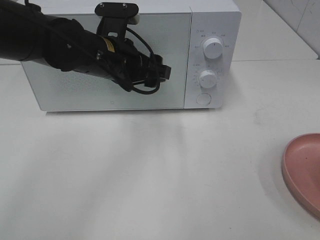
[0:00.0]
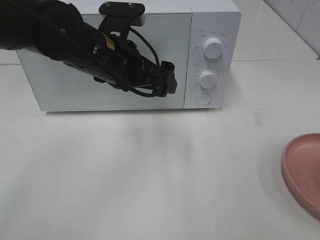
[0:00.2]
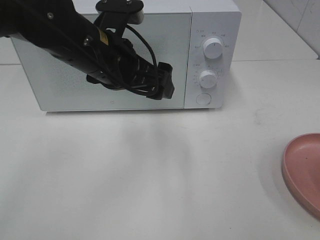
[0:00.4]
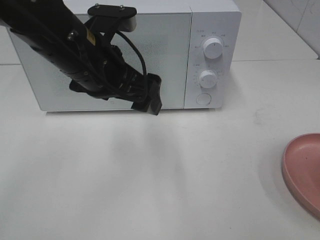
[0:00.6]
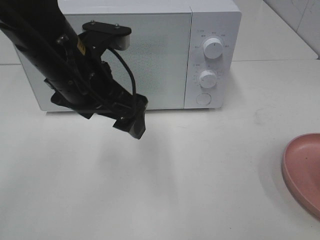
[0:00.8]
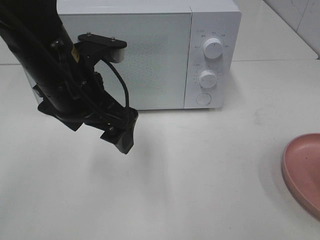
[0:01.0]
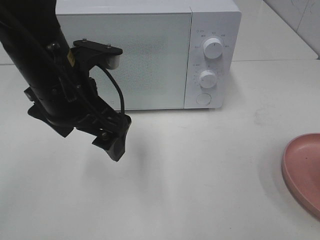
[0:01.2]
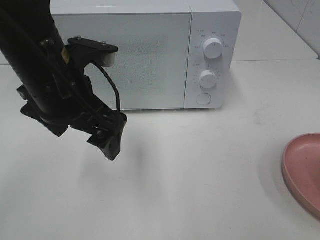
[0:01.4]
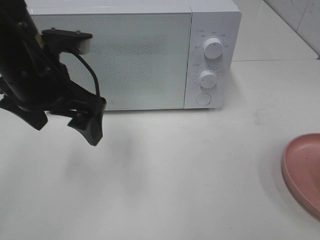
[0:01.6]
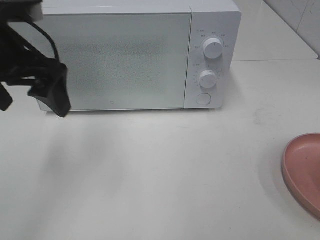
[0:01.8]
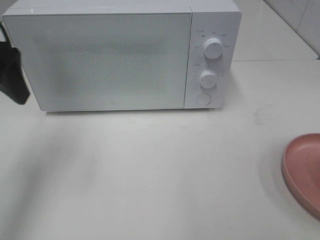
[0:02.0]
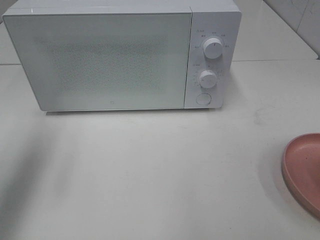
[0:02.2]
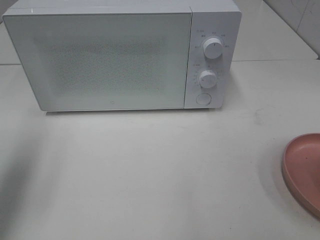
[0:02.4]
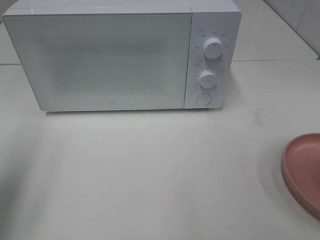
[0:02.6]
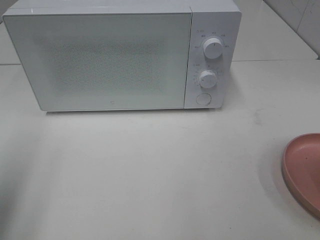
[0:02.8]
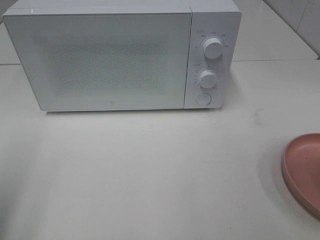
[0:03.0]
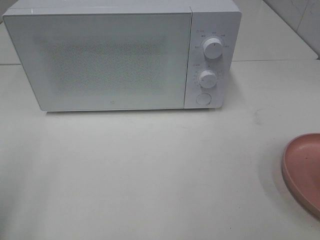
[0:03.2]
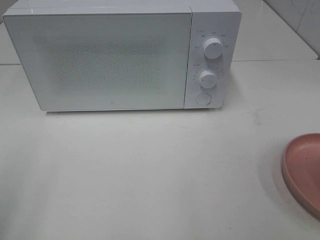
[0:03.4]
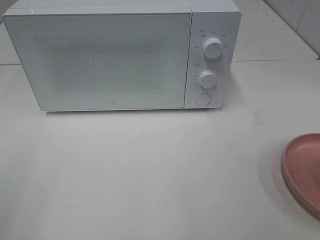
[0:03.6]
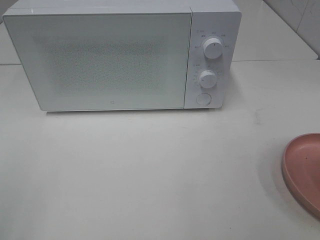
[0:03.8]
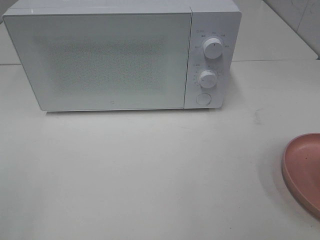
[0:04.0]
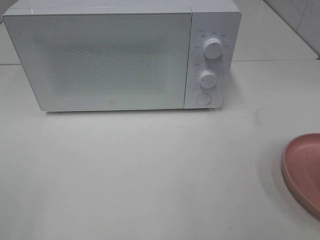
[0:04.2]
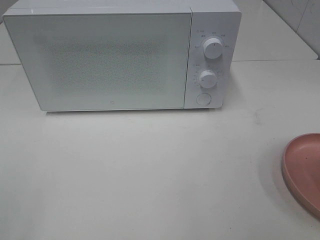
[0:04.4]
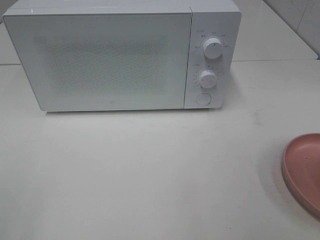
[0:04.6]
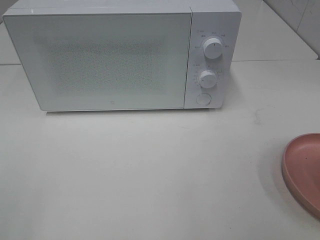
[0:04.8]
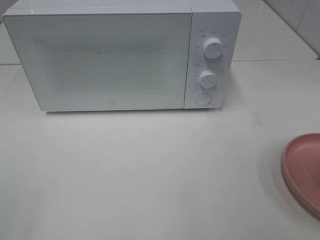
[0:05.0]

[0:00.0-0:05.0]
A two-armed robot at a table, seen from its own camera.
Task of the whole recording: Heat the burger.
0:00.0 to 0:01.6: The left gripper moves to the left and backward, some 10 cm.
0:01.6 to 0:03.4: The left gripper moves backward and to the left, about 25 cm.

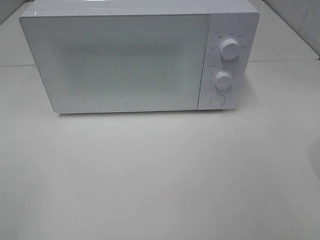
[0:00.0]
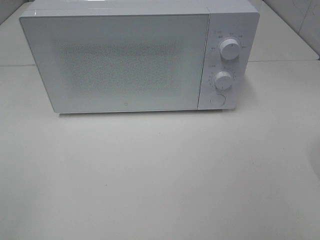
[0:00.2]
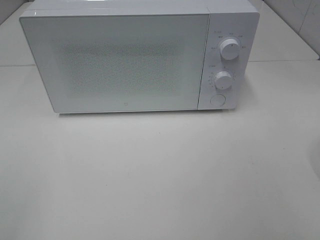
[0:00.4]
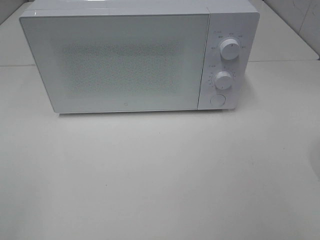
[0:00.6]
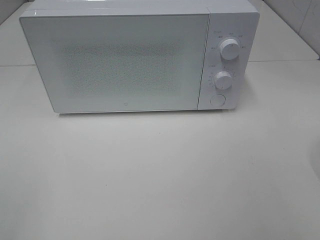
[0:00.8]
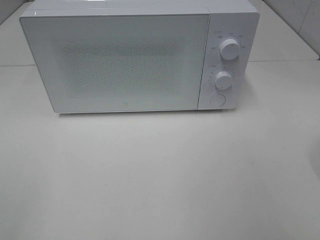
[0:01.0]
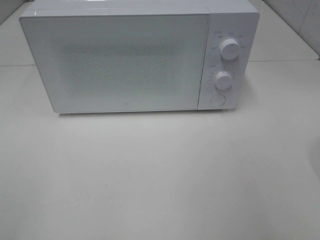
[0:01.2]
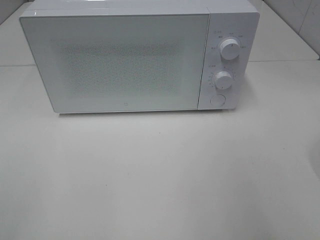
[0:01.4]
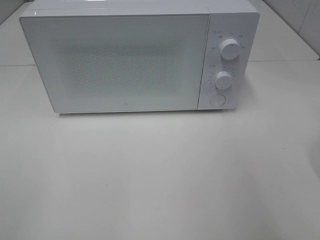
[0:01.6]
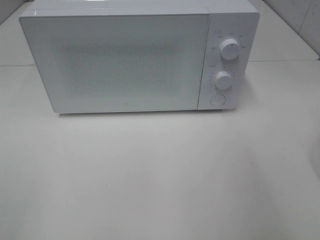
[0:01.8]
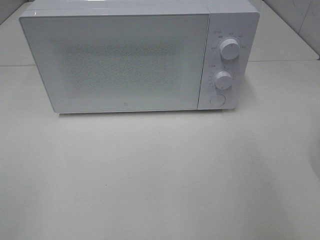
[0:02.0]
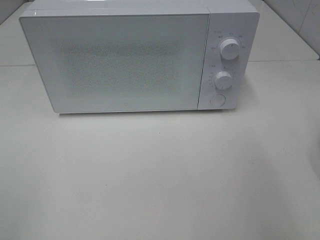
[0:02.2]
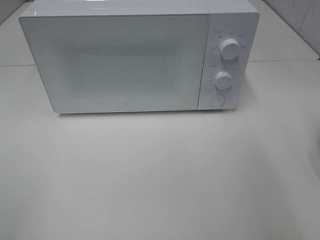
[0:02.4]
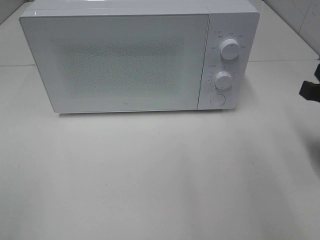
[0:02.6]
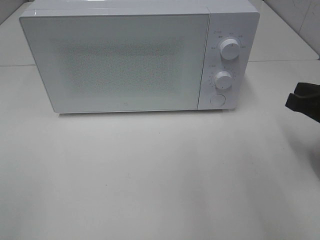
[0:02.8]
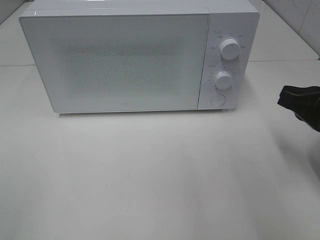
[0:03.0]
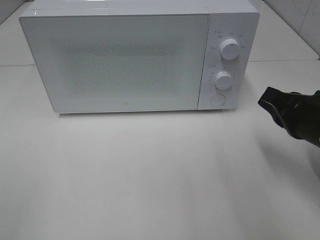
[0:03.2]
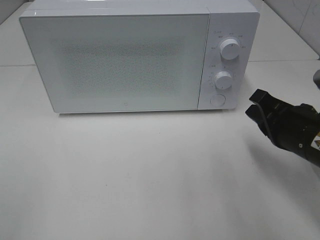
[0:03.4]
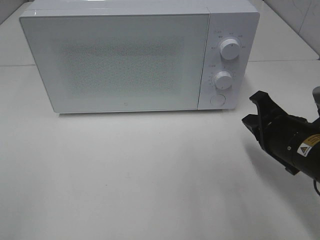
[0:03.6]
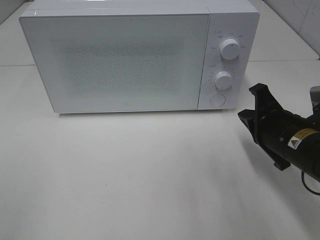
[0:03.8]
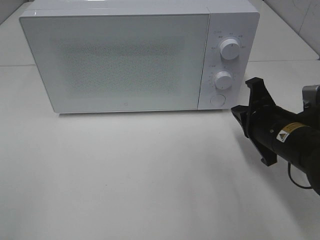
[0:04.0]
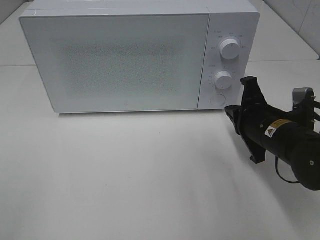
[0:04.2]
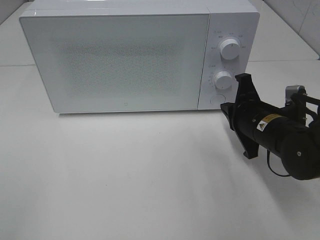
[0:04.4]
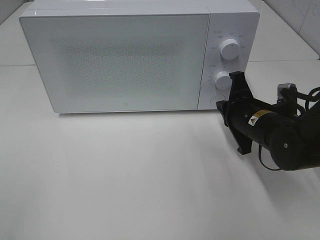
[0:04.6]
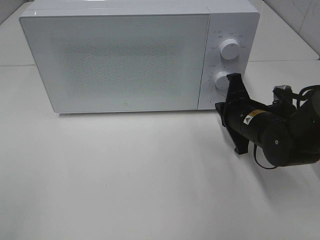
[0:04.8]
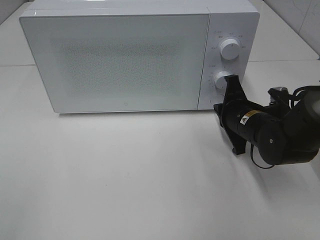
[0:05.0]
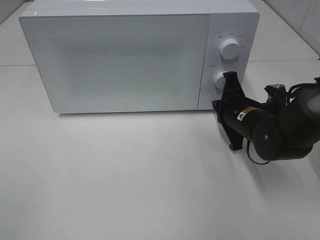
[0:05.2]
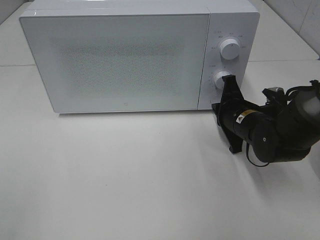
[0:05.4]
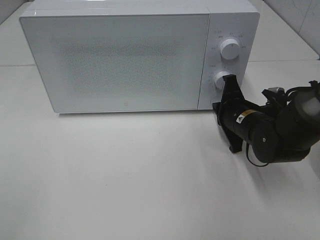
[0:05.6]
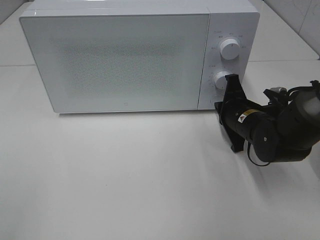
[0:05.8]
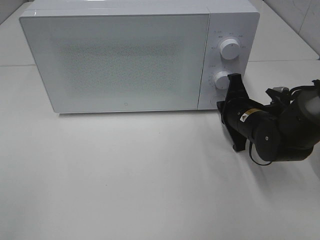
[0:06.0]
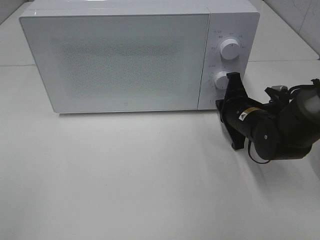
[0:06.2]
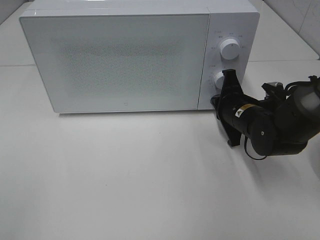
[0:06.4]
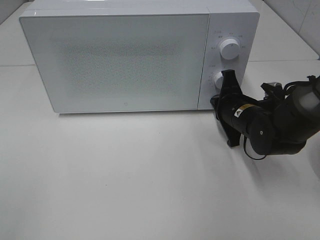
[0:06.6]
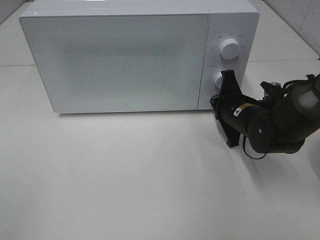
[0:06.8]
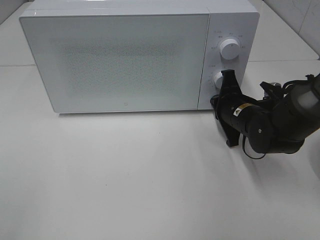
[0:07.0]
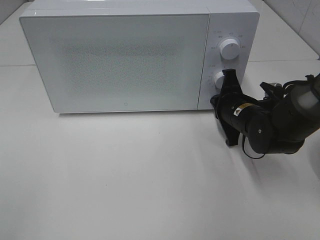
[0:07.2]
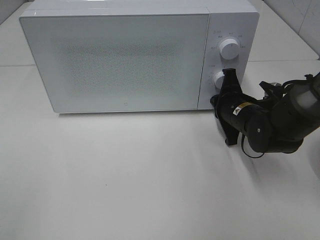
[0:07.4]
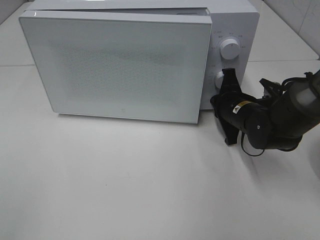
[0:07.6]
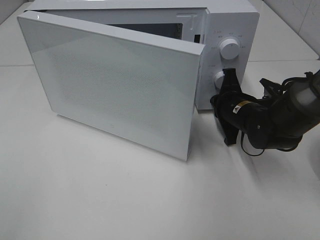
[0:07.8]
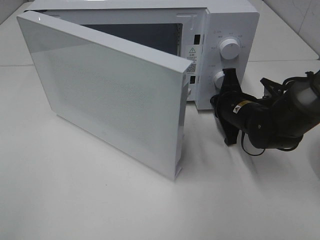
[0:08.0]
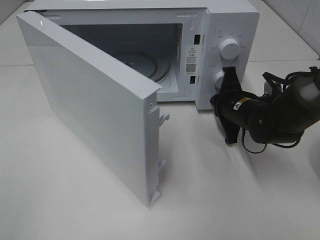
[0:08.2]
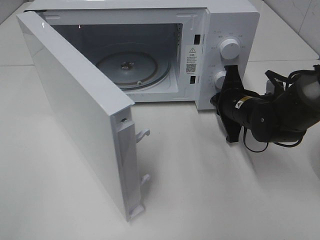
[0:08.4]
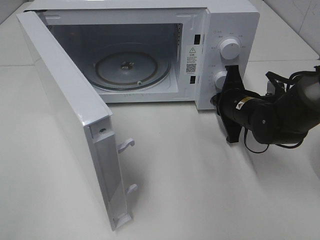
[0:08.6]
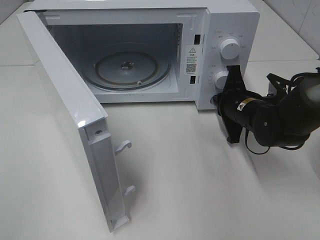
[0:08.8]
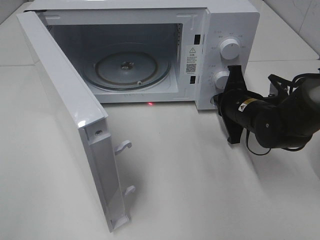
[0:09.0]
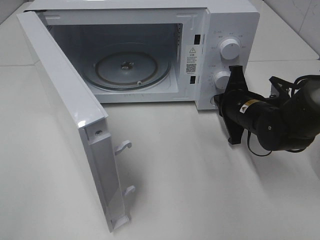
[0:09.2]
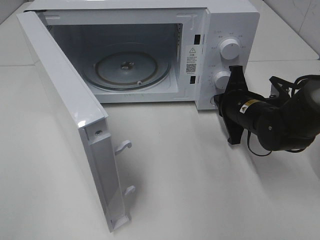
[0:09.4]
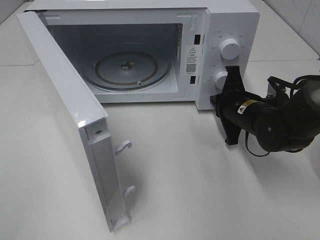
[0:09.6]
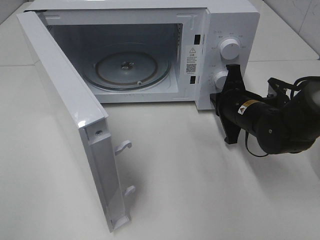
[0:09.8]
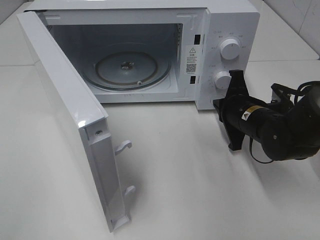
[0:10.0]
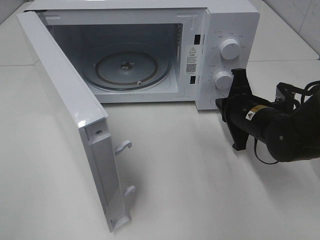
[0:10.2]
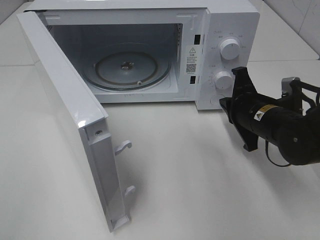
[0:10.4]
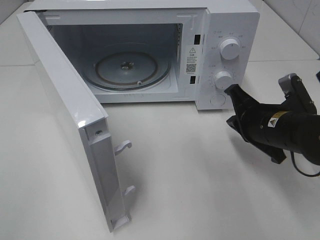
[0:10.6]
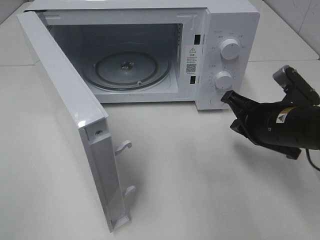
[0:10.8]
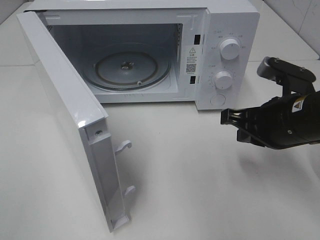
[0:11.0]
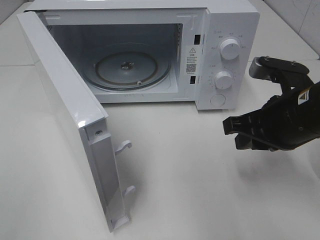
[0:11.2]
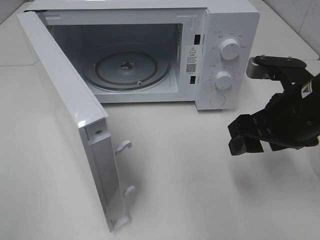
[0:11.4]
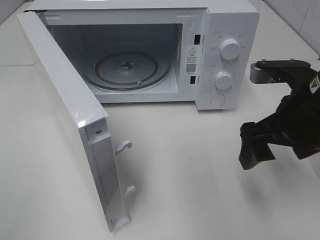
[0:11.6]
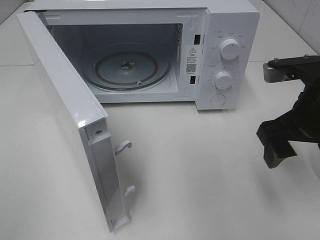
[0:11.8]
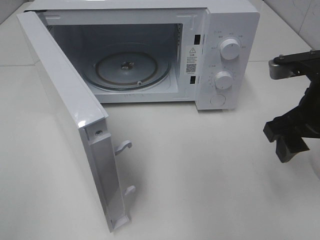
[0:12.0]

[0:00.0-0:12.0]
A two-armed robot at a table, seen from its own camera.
Task of the whole recording: Heat the burger.
Step, 0:00.0 to 0:09.8: Right hand: press the switch.
0:01.6 to 0:03.0: The right gripper moves downward and forward, roughly 15 cm.
0:03.0 to 0:04.4: The right gripper shifts some 15 cm to the left, downward and forward.
0:04.4 to 0:06.0: The right gripper moves roughly 5 cm.
0:06.0 to 0:07.6: There are only small adjustments of the grippers.
0:09.0 to 0:10.4: The right gripper moves approximately 5 cm.
0:10.4 to 0:12.0: The right gripper goes roughly 15 cm upward and backward, and opens its fingers.

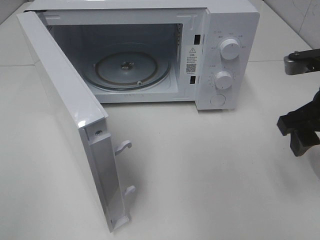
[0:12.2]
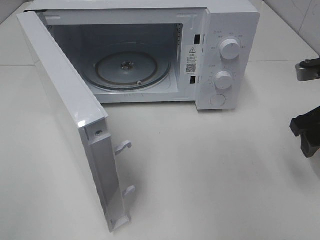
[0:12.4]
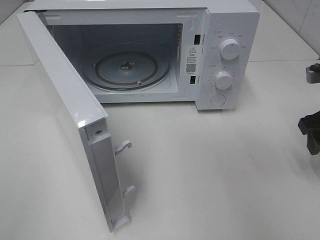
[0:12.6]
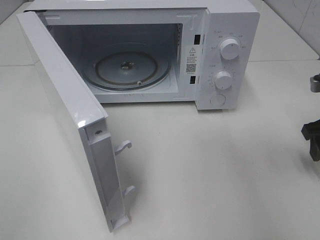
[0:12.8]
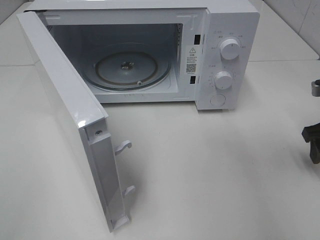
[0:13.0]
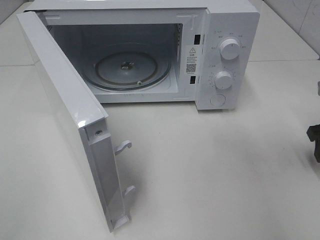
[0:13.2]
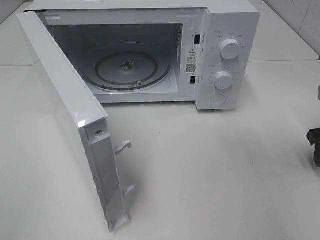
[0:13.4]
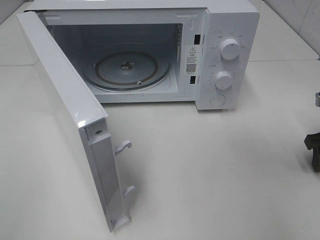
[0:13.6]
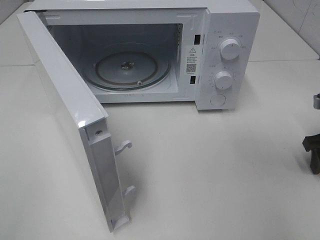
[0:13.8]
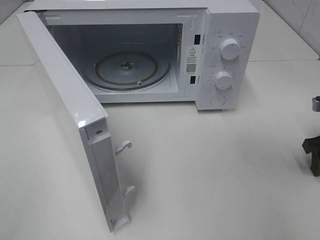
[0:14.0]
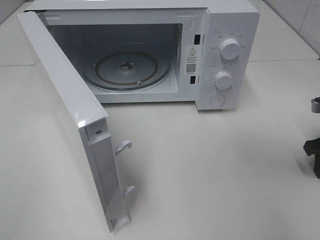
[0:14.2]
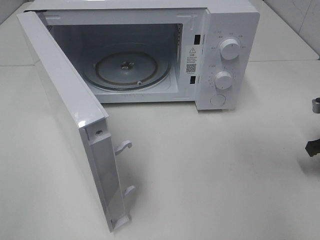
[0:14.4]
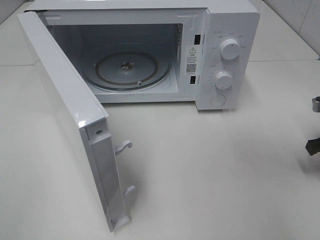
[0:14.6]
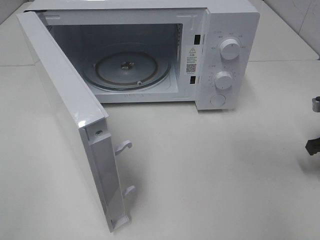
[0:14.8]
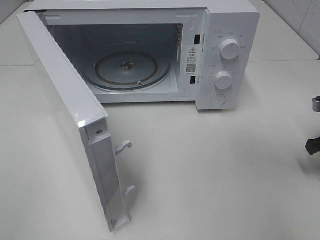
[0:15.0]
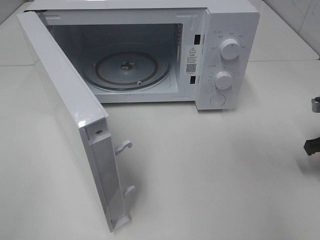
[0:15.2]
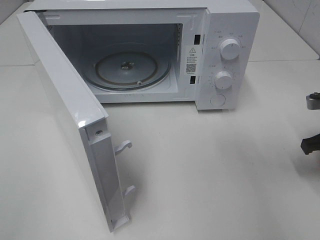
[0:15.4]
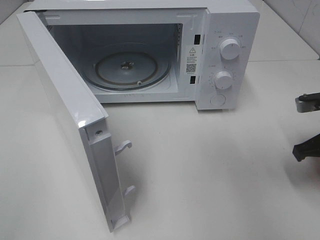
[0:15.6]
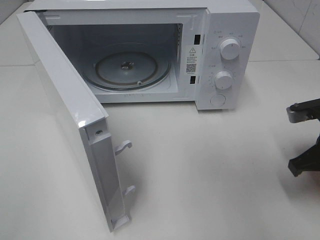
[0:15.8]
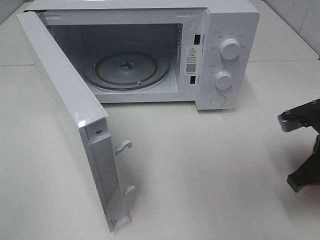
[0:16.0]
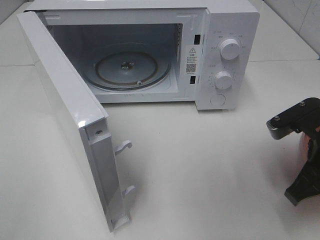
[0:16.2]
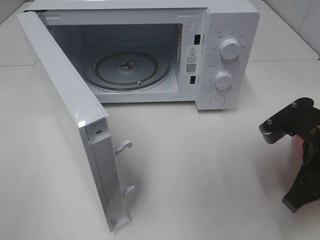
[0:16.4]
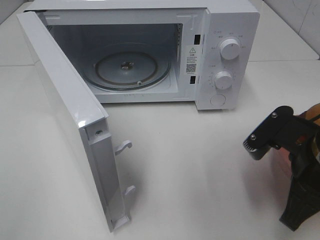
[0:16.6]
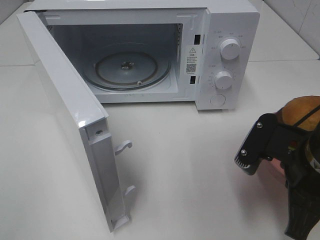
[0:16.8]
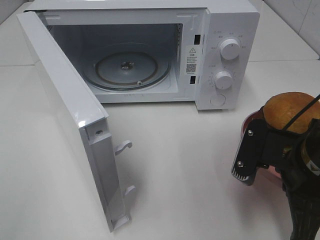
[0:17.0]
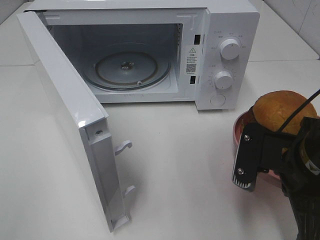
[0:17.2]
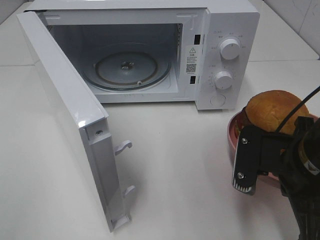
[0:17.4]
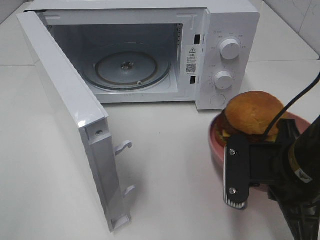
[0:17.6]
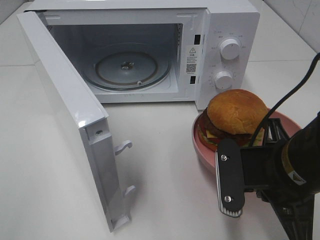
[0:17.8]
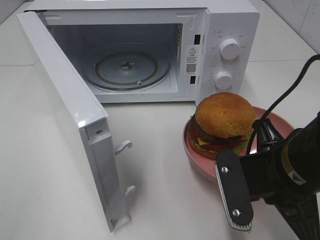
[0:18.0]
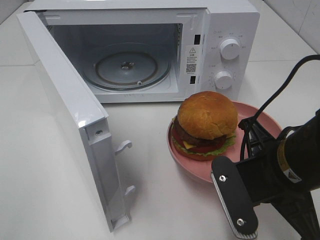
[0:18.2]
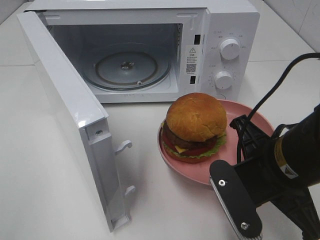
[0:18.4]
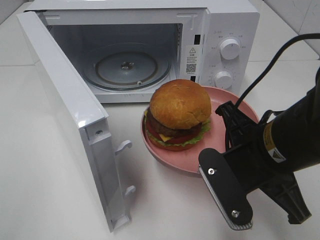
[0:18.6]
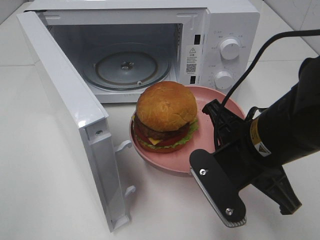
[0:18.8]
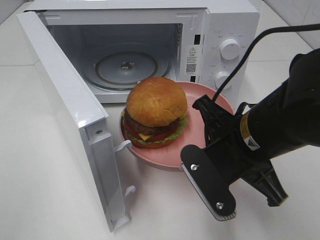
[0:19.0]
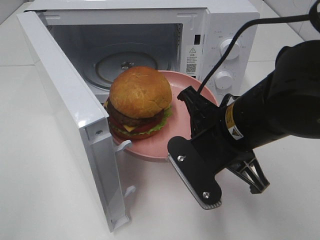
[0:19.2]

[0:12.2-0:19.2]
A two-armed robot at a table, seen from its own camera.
Task of the whole recording: Heat the burger.
Step, 0:12.2 to 0:15.2: Right hand: grab the plate with the hamburger.
0:12.2 to 0:13.6: The right gripper heads to the right and downward, covering approximately 15 cm.
0:15.0 to 0:16.4: The right gripper is displaced to the left, backward and upward by approximately 20 cm.
0:16.4 to 0:17.8: The right gripper is displaced to the left by about 5 cm.
0:17.8 to 0:19.2: The right gripper moves to the left, approximately 5 cm.
